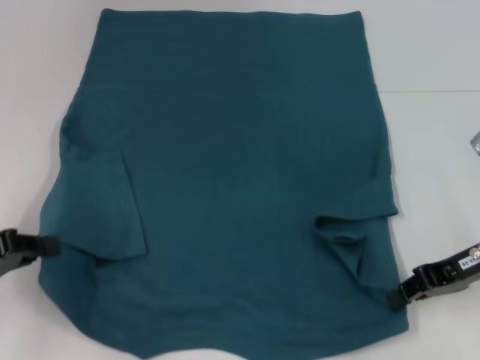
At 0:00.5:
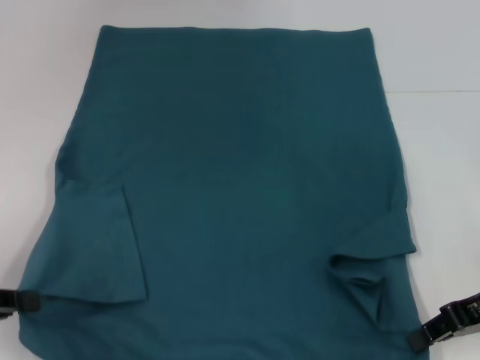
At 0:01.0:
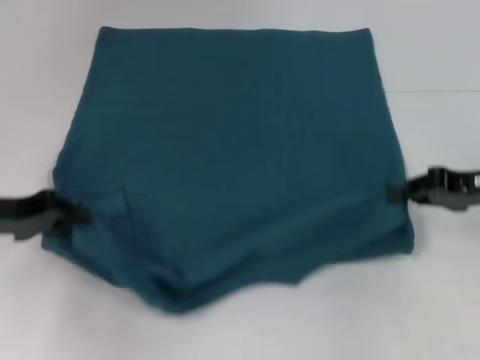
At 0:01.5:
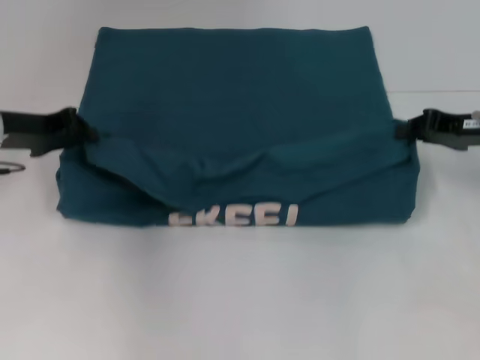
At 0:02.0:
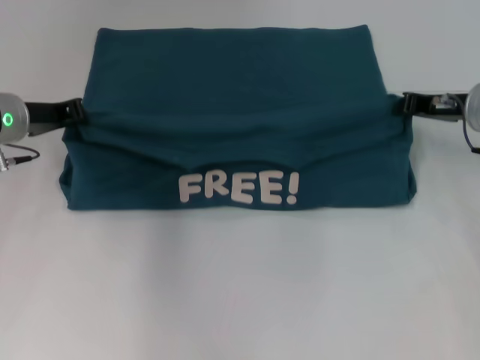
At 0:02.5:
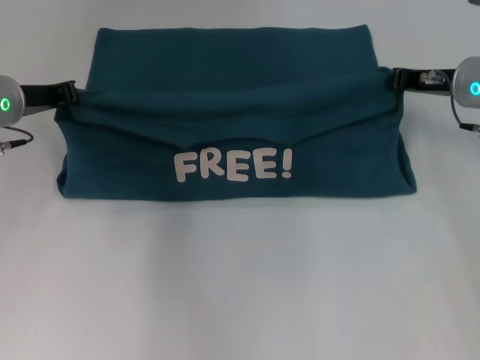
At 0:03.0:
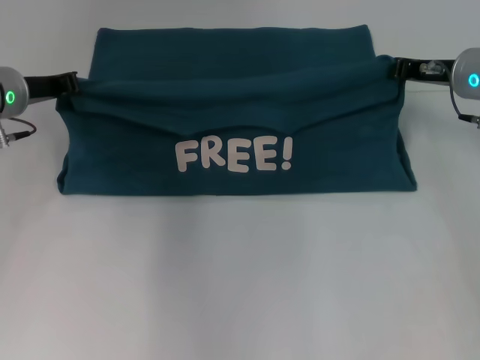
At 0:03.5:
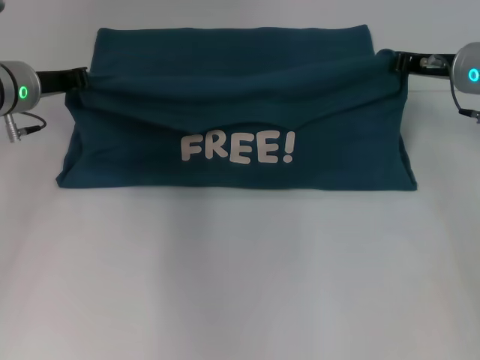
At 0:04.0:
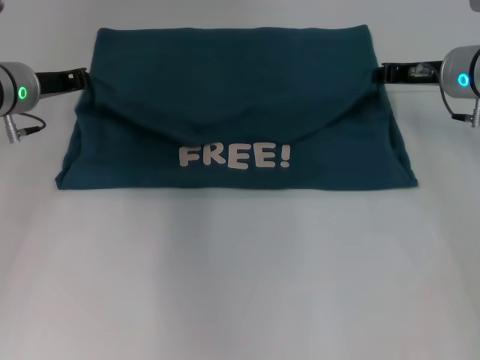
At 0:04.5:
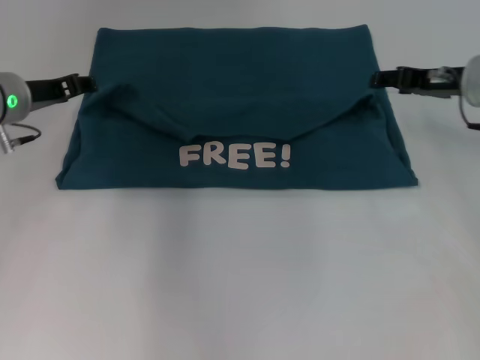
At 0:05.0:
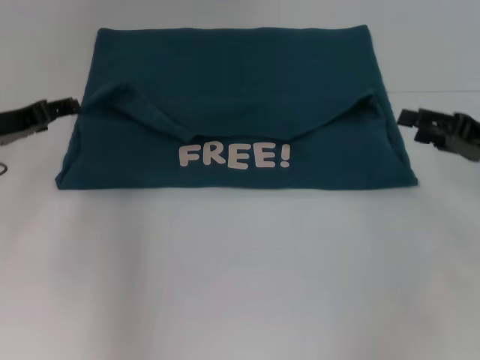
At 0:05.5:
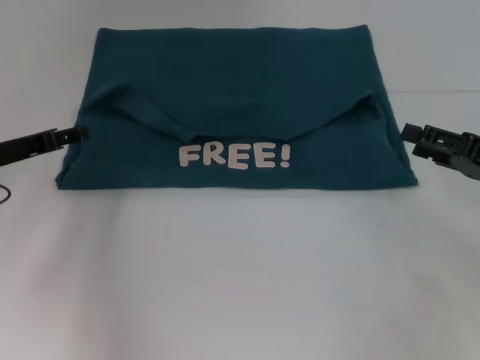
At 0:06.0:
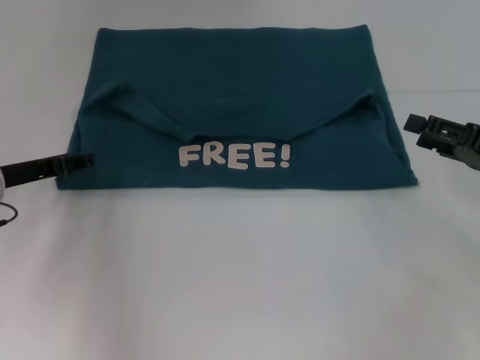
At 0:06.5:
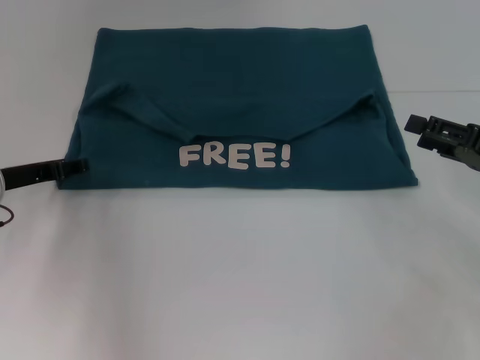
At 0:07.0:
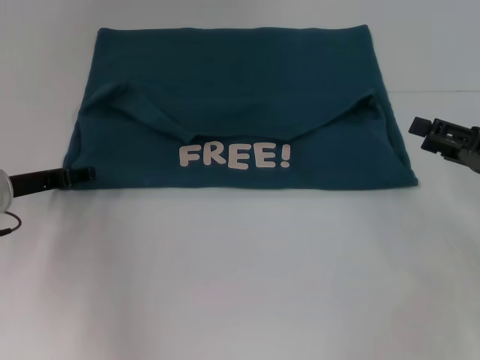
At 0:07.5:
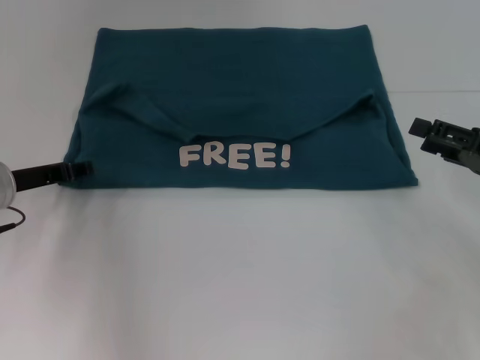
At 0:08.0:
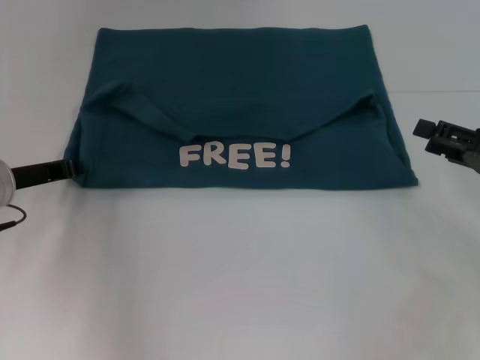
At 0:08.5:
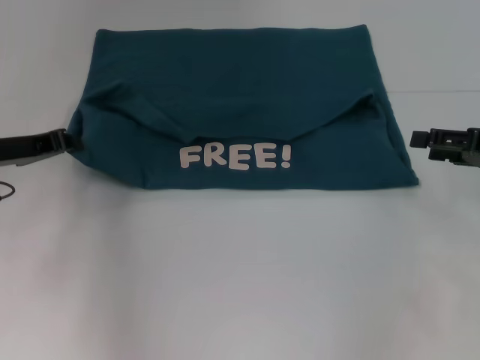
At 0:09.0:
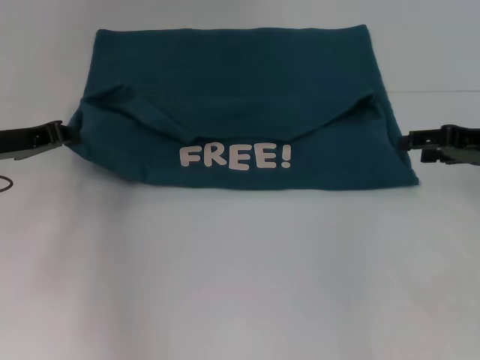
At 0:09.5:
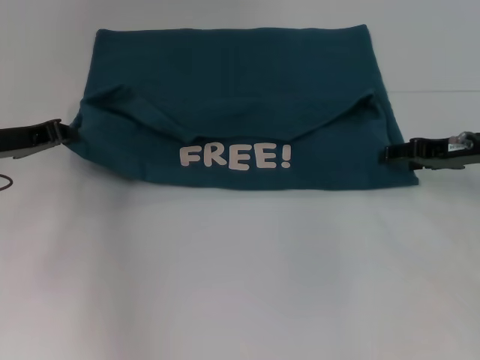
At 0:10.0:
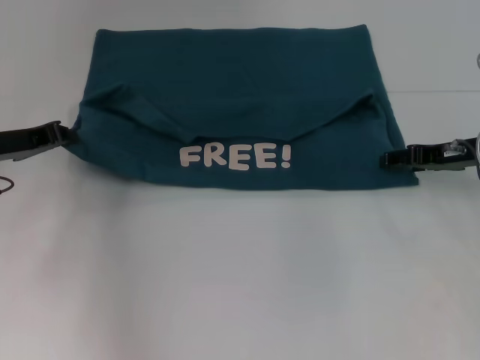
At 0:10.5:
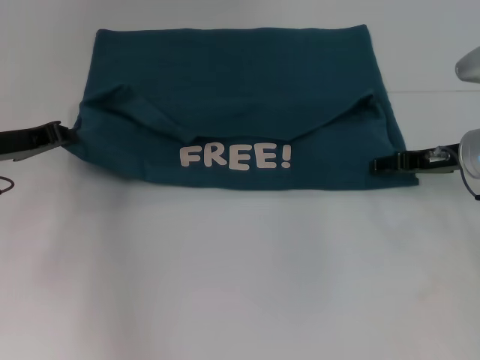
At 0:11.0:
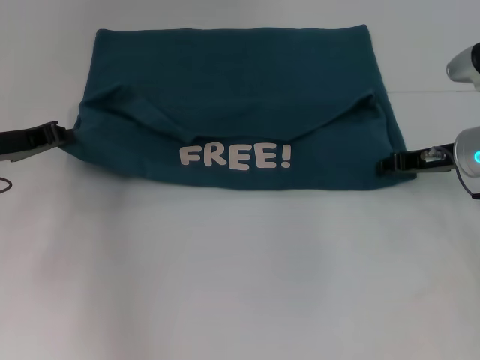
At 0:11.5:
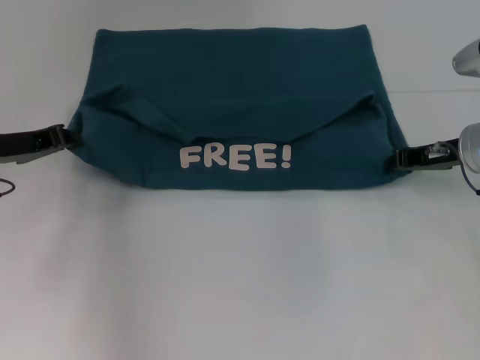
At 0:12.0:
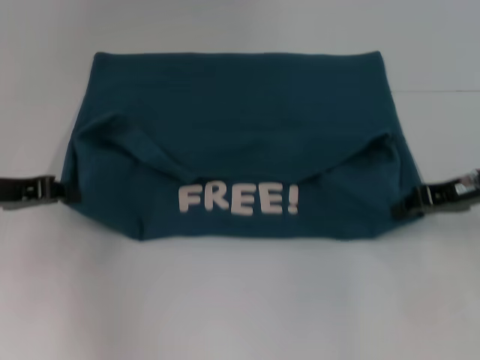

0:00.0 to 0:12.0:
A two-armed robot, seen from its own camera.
Step, 0:00.0 to 0:04.0: Fold the clothes to the left.
Step, 0:00.0 to 0:04.0: Fold the clothes to the right.
0:00.0 to 0:02.0: The right gripper heads forward, covering approximately 10 cm; the left gripper travels forward and to the right by approximately 20 cm.
0:02.0 to 0:04.0: The grippers stay close to where they were, moving slightly.
0:04.0 to 0:06.0: The right gripper shifts roughly 15 cm backward and to the right, and opens. Meanwhile the left gripper shifts some 10 cm backward and downward, and opens up.
0:06.0 to 0:08.0: The left gripper closes up.
0:08.0 to 0:10.0: The right gripper shifts roughly 10 cm forward and to the left.
0:10.0 to 0:12.0: The right gripper closes its fingers. The left gripper changes place by approximately 5 cm.

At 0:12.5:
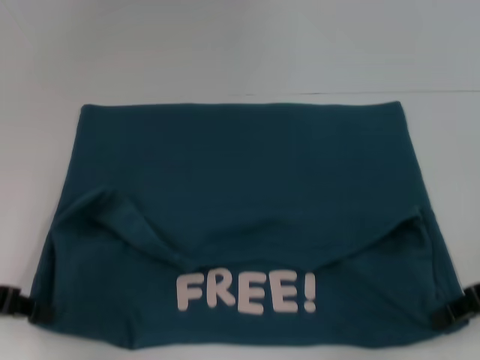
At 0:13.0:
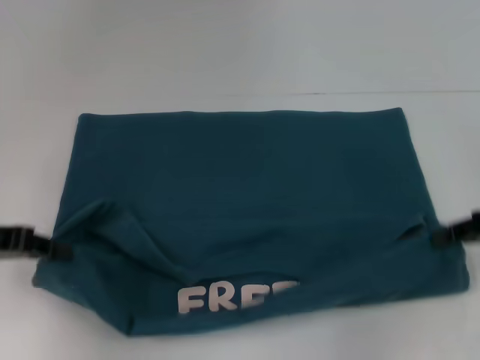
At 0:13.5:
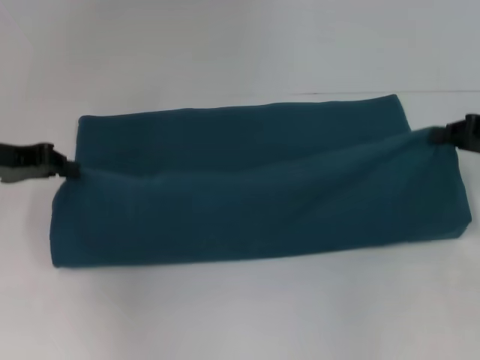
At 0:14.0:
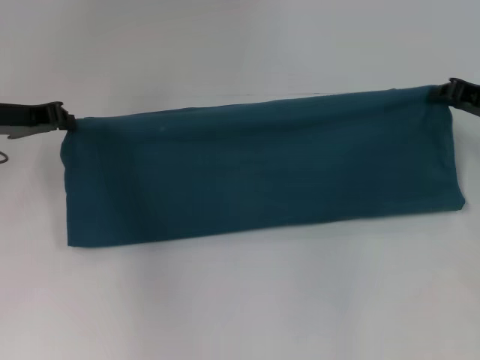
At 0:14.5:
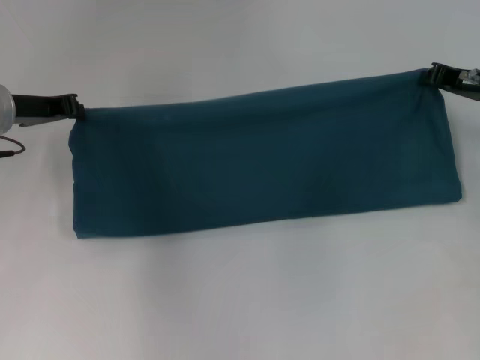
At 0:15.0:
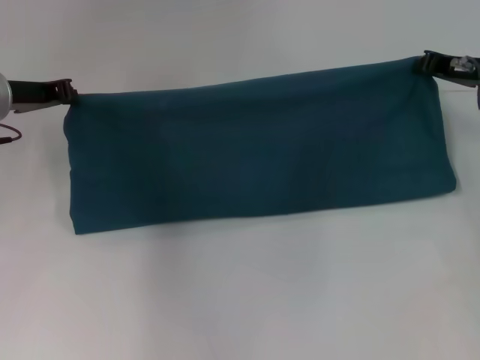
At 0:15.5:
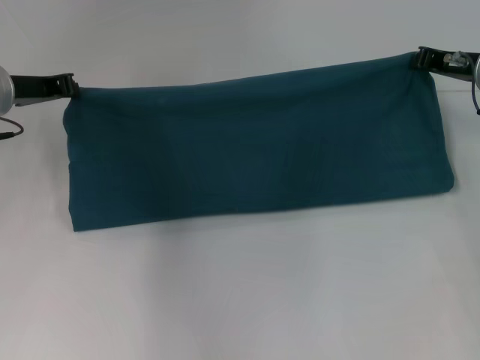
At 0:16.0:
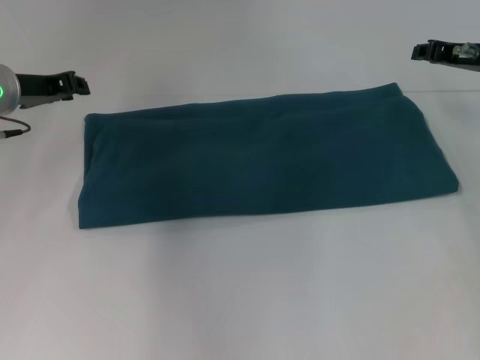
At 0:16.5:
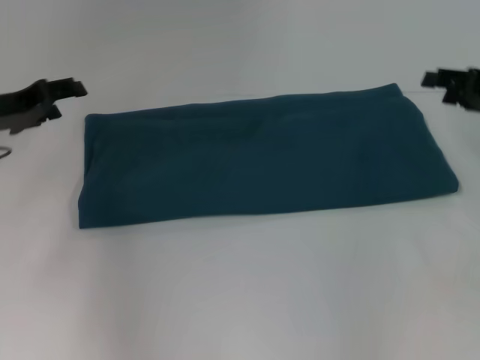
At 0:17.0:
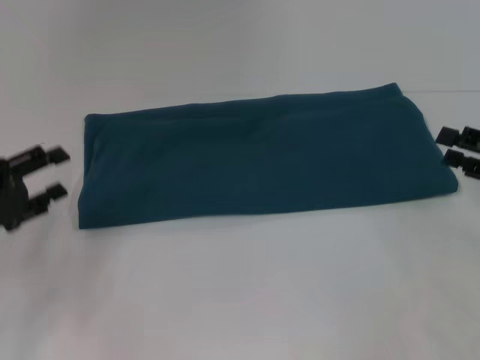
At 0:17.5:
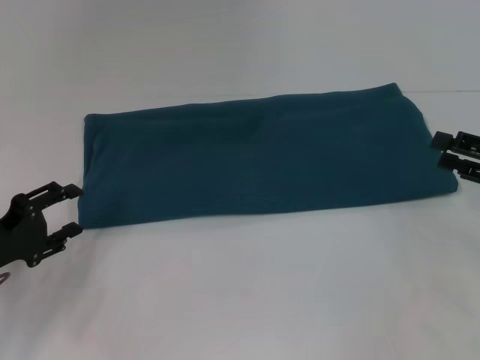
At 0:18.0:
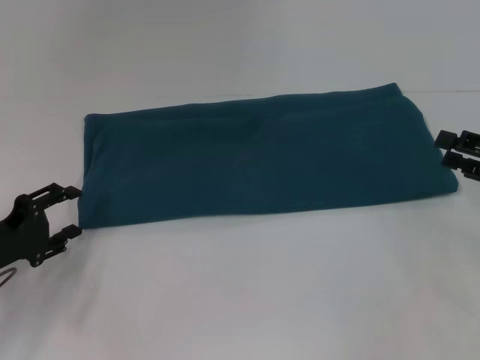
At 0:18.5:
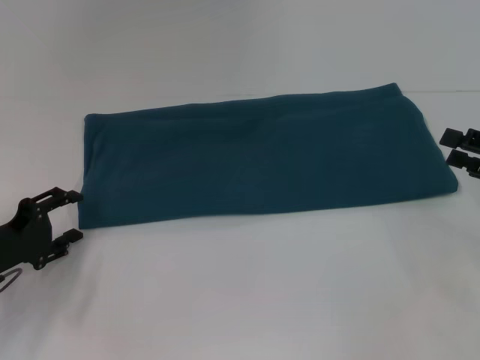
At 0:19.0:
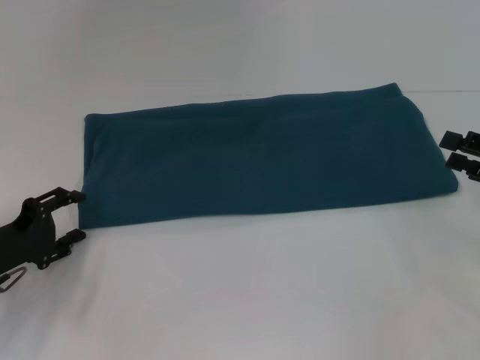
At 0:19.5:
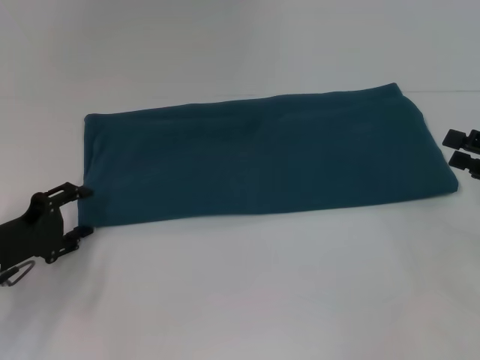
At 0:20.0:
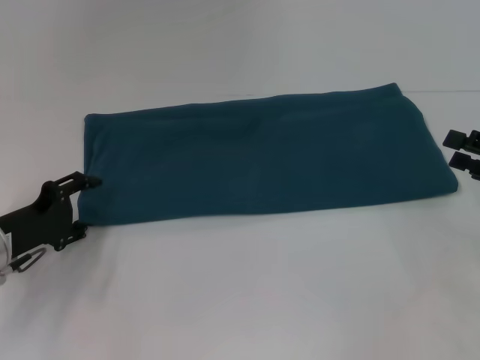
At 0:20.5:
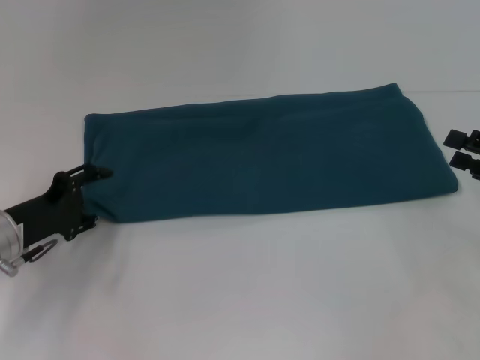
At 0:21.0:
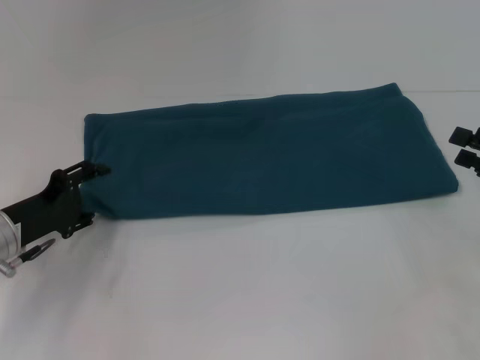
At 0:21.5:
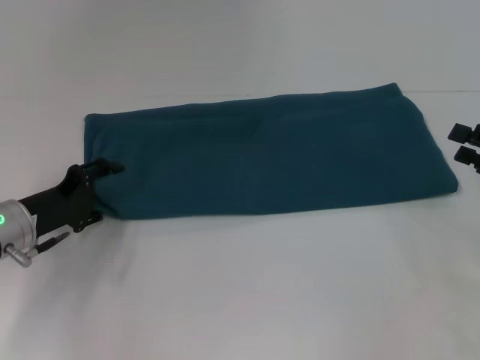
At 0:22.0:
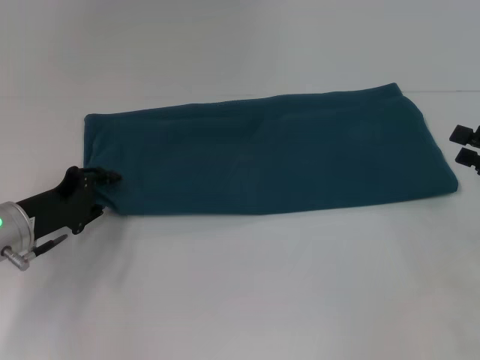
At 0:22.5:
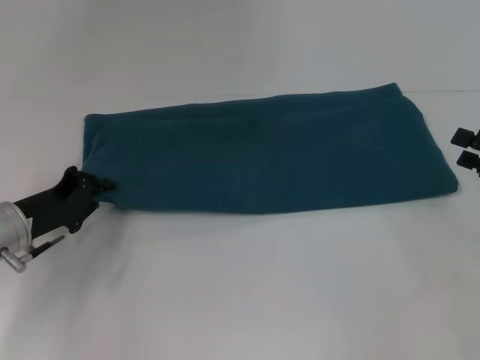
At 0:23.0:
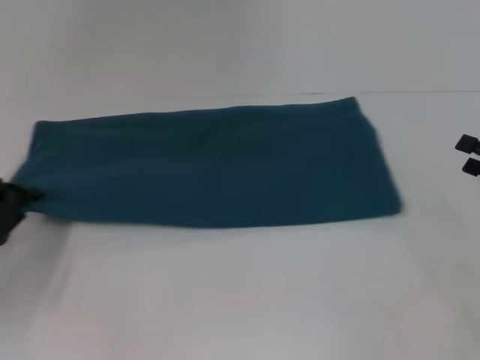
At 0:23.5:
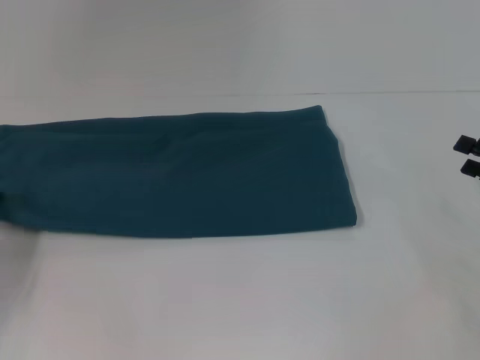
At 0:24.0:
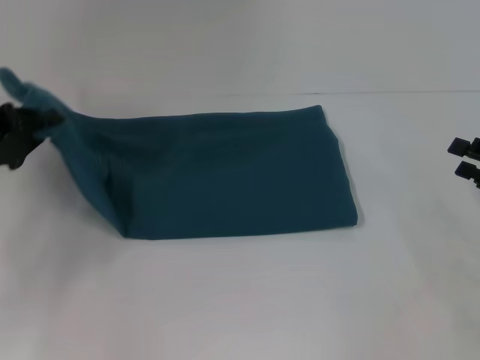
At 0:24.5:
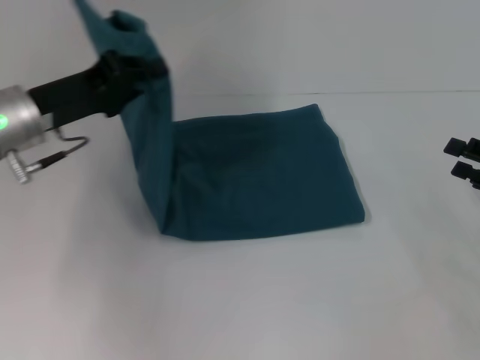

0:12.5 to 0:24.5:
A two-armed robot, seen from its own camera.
Step, 0:12.5 to 0:15.5: Fold the clothes to the right.
0:12.5 to 0:14.5: Both grippers travel together forward, roughly 15 cm.
0:14.5 to 0:16.5: The right gripper changes place by approximately 5 cm, and opens up. The left gripper opens its fingers.
0:16.5 to 0:18.5: The right gripper travels backward by approximately 10 cm. The left gripper is displaced backward and downward by some 15 cm.
0:18.5 to 0:20.5: The grippers move only a little.
0:20.5 to 0:22.5: The left gripper closes its fingers.
0:22.5 to 0:24.5: The left gripper shifts roughly 10 cm upward, and moves roughly 10 cm to the left and comes back.

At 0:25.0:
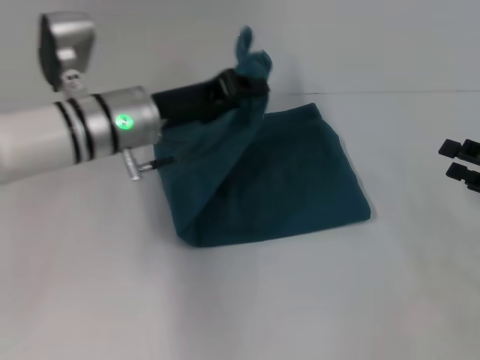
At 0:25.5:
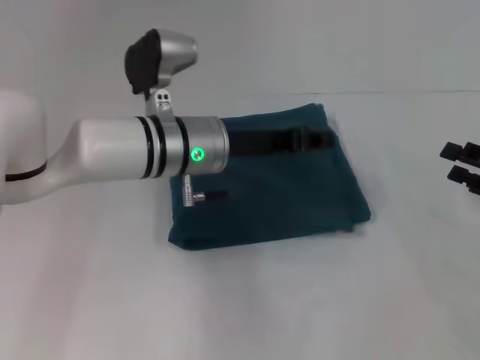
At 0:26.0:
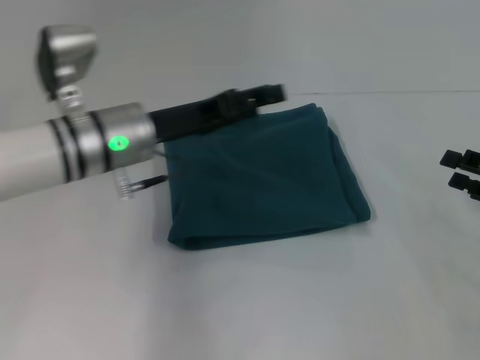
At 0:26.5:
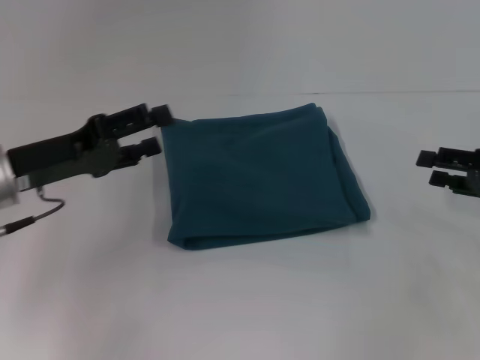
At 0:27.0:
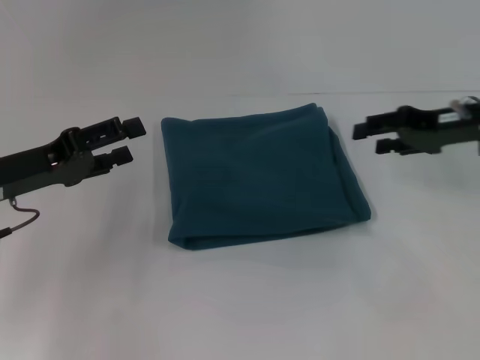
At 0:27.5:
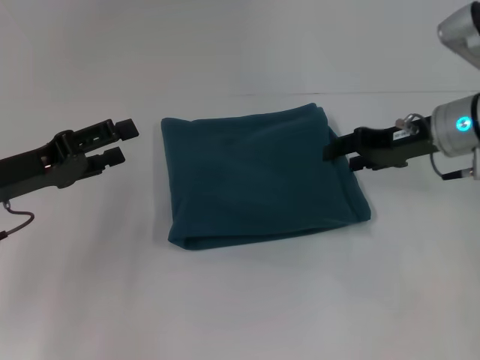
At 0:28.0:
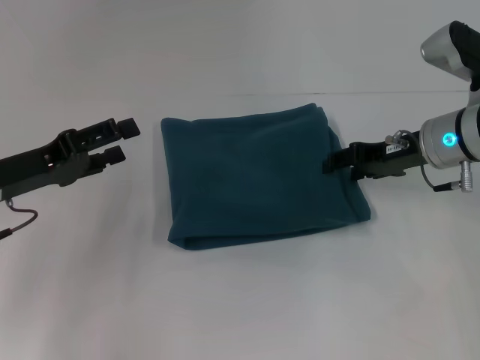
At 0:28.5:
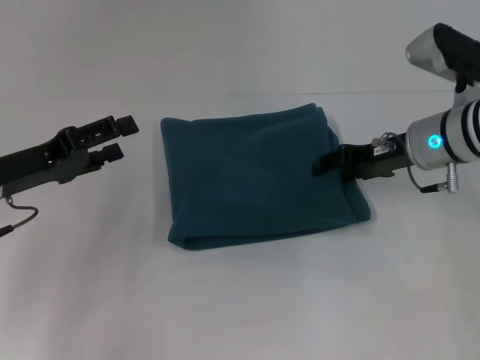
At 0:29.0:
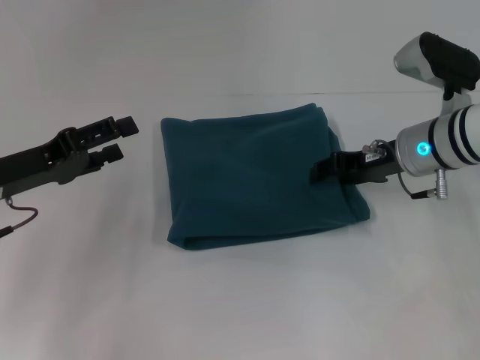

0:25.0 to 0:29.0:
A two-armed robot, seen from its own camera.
0:25.0 to 0:27.0: The right gripper shifts some 15 cm forward, to the left and upward, while the left gripper shifts approximately 15 cm to the left and backward, and opens.
0:27.0 to 0:29.0: The right gripper moves to the left, approximately 10 cm.
